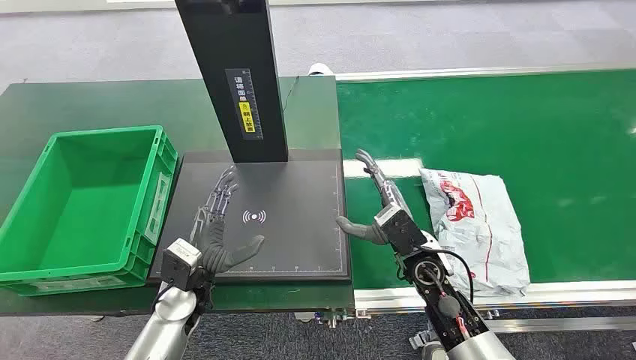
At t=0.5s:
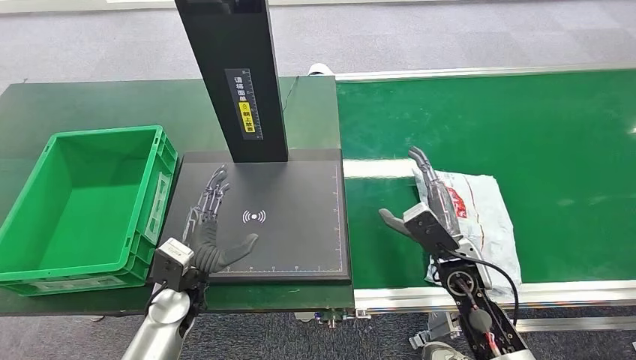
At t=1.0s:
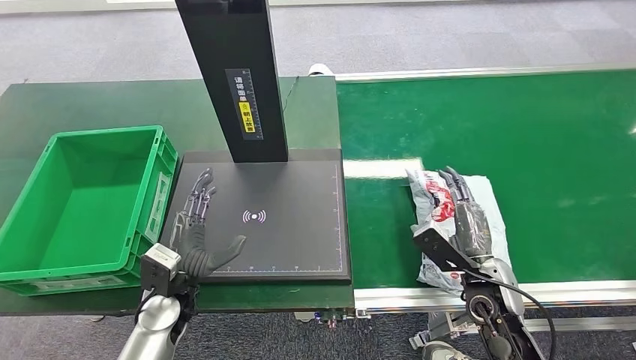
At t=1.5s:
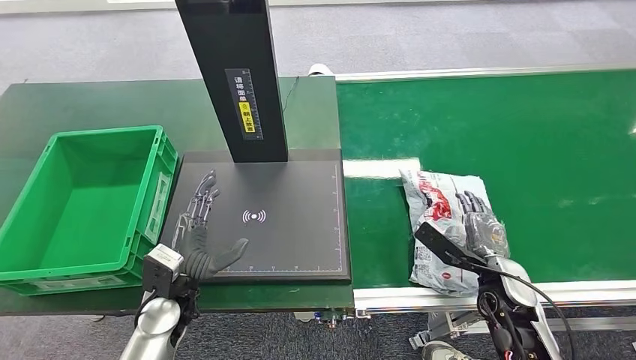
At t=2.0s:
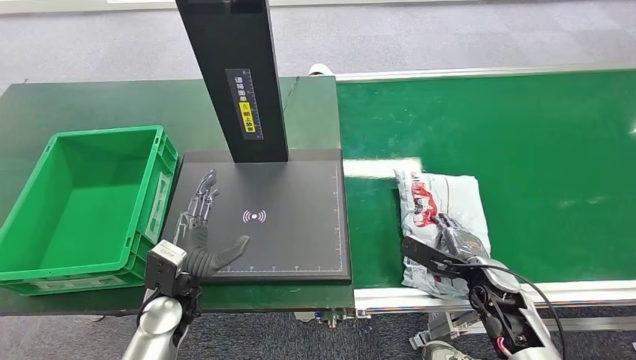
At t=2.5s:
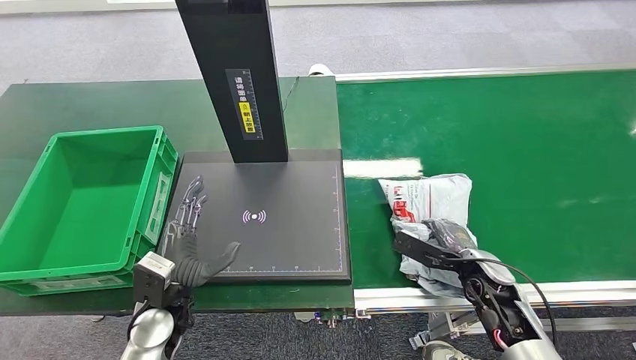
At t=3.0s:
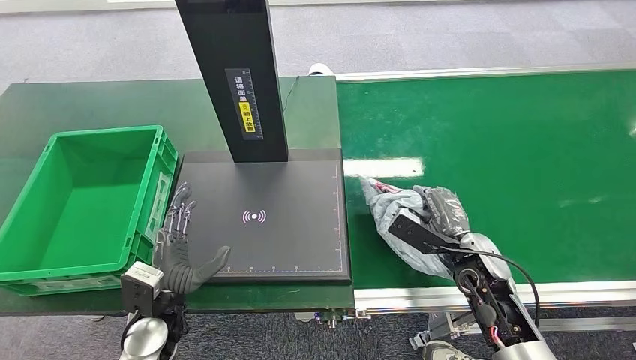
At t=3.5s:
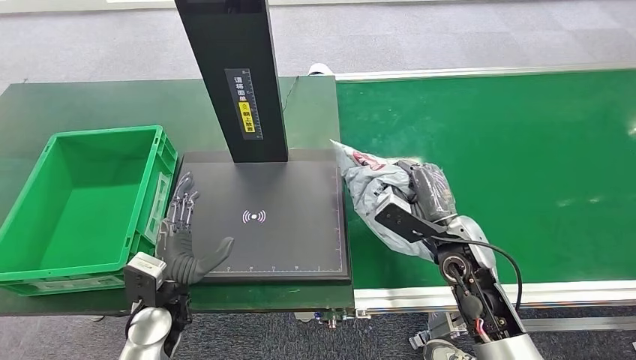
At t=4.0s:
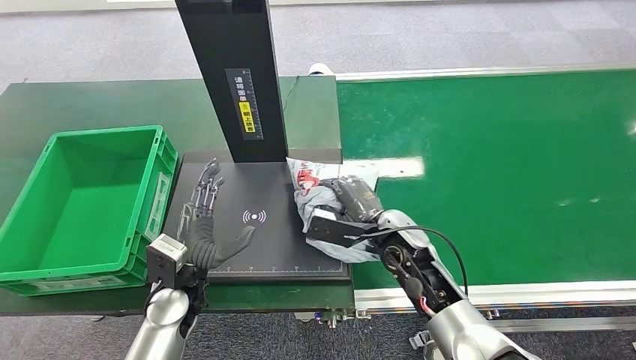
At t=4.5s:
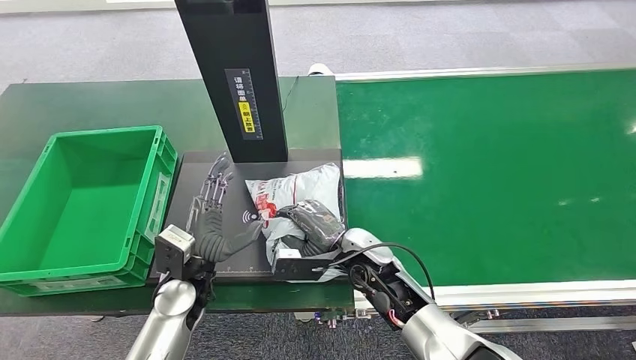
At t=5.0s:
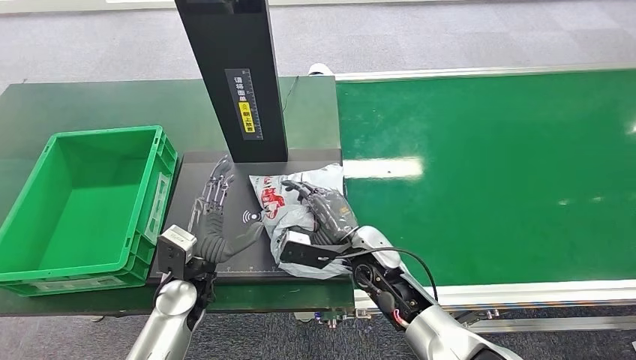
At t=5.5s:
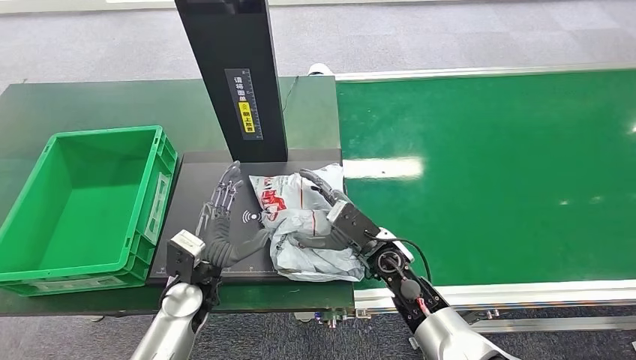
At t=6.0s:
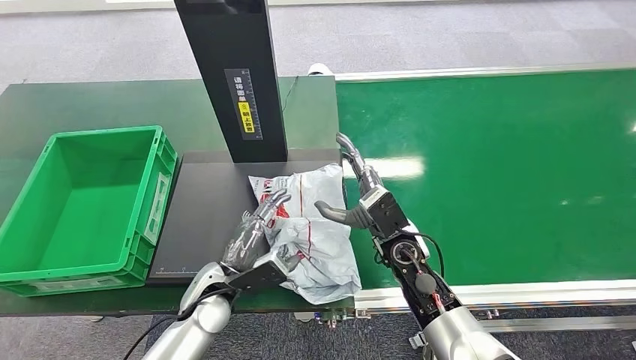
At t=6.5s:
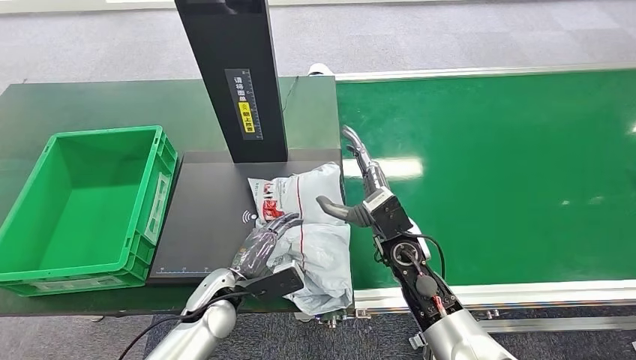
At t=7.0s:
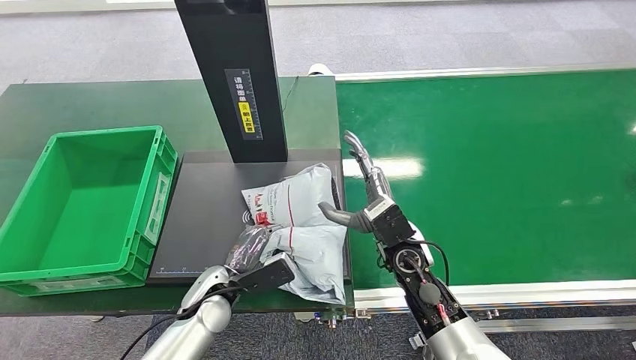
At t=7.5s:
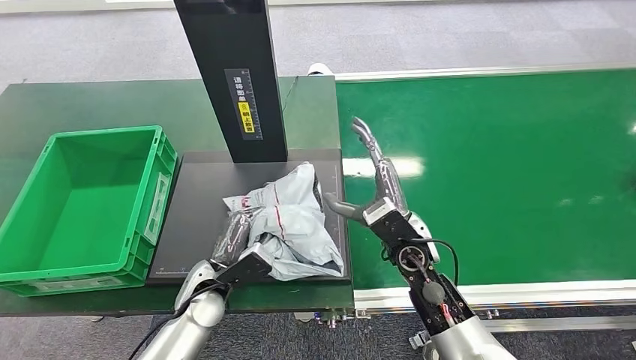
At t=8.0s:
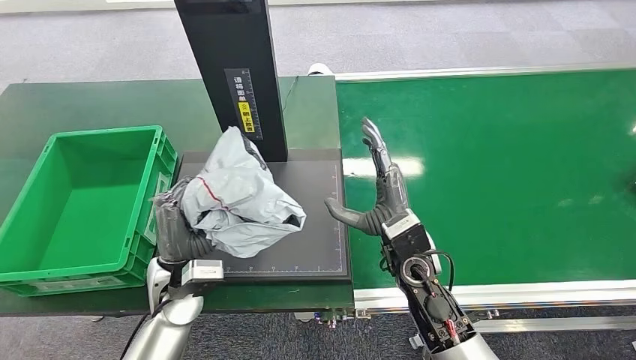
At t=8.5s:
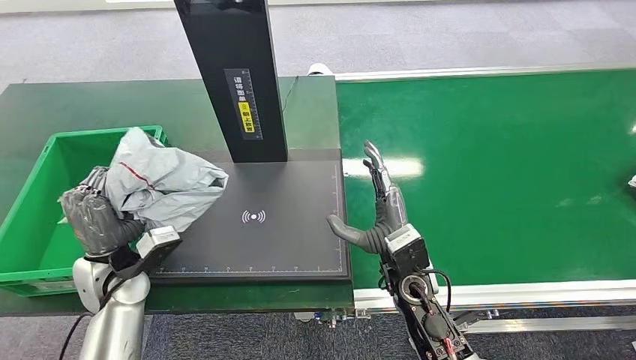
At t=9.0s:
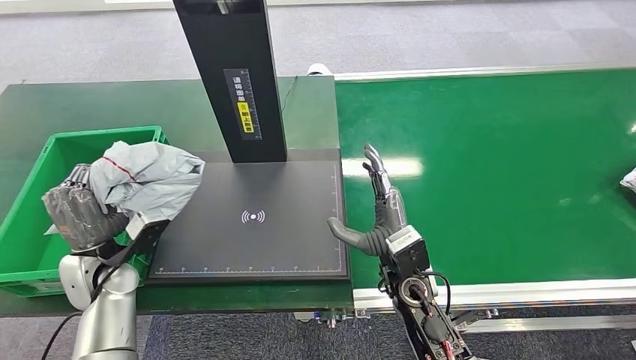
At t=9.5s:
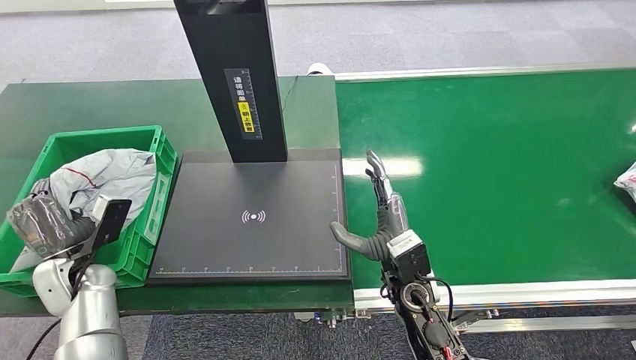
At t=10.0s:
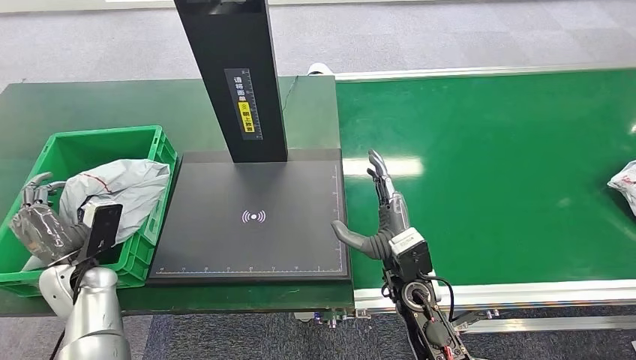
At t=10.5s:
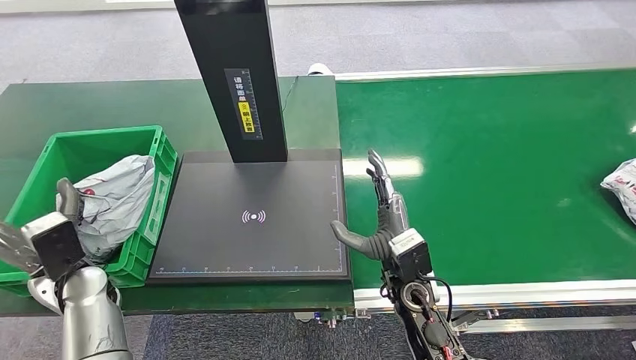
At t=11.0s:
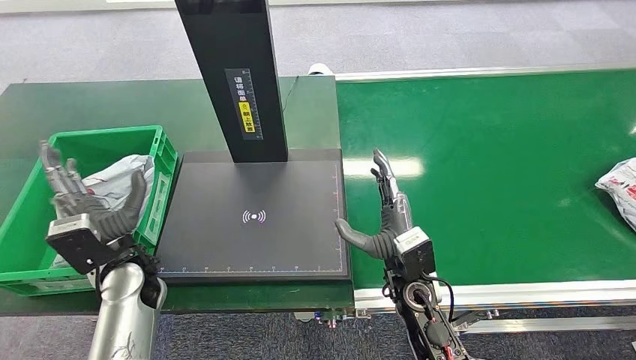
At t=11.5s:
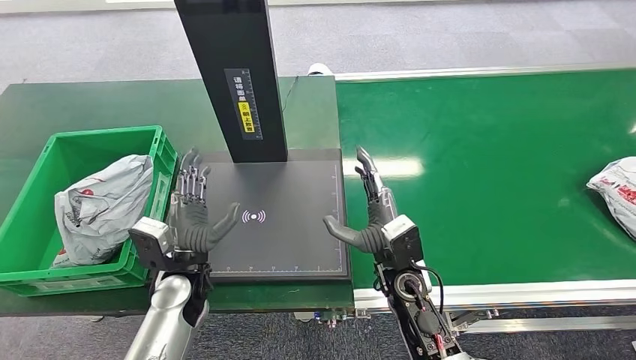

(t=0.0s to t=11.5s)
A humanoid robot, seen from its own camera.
Step, t=0.0s - t=3.5s: Pick up the package from the conveyor belt.
Step, t=4.0s - t=5.5s: Place the package onto the inbound machine.
Step, t=6.0s - t=8.0s: Pick up the package from the inbound machine.
Step, t=8.5s - t=11.5s: Place the package into the parcel locker.
t=2.0s - t=4.0s: The right hand moves to the left and upward, about 20 cm.
t=6.0s - t=7.5s: There are only small adjustments of the hands.
t=9.5s - t=11.5s: The left hand goes about 20 cm to the right.
